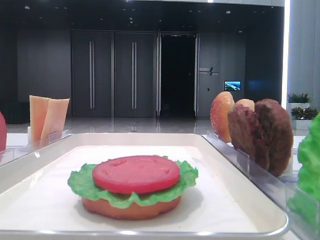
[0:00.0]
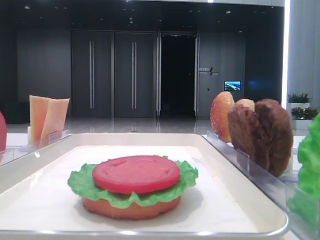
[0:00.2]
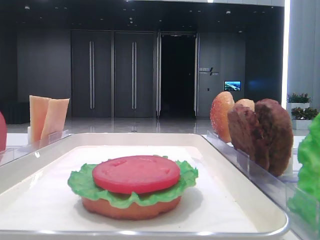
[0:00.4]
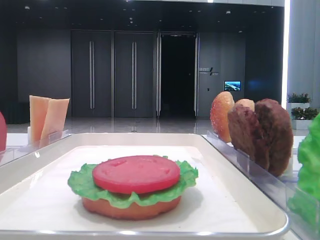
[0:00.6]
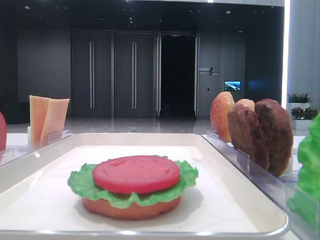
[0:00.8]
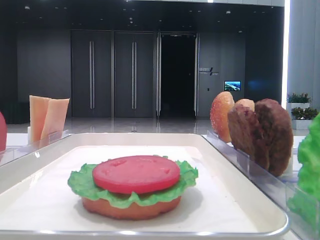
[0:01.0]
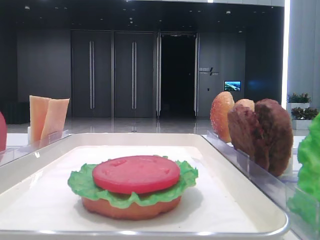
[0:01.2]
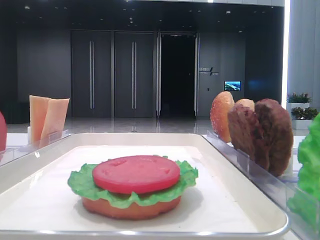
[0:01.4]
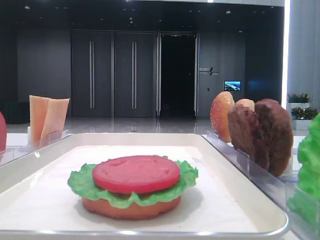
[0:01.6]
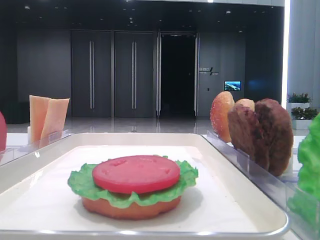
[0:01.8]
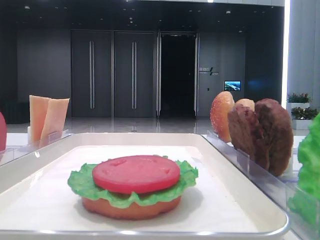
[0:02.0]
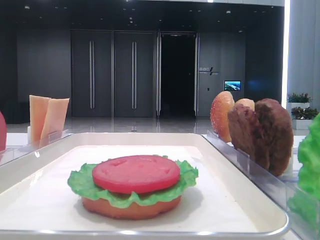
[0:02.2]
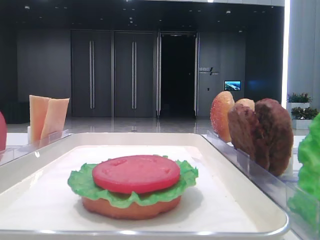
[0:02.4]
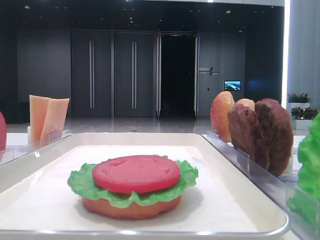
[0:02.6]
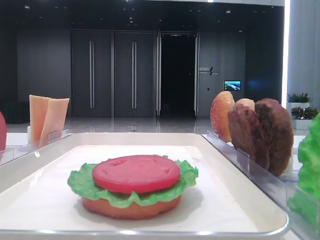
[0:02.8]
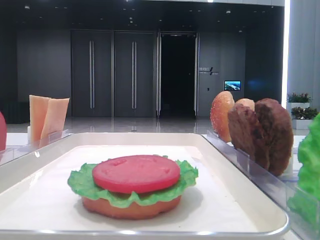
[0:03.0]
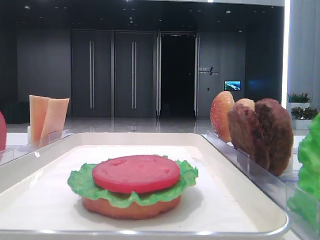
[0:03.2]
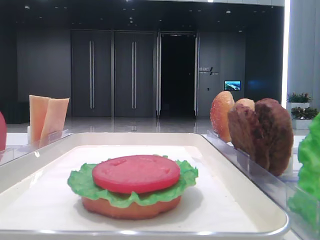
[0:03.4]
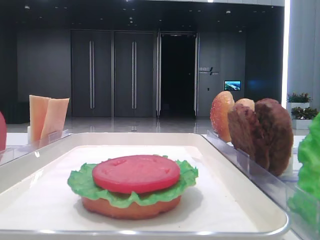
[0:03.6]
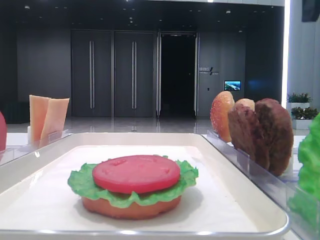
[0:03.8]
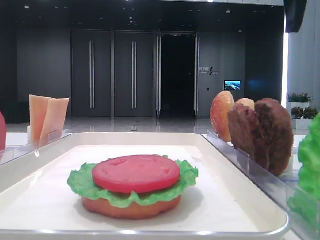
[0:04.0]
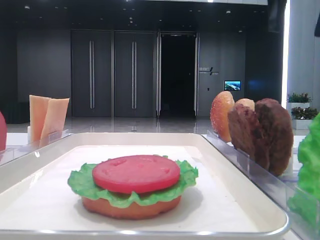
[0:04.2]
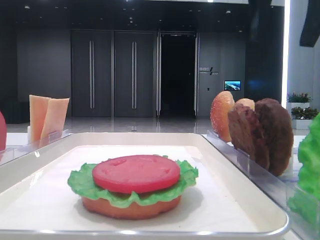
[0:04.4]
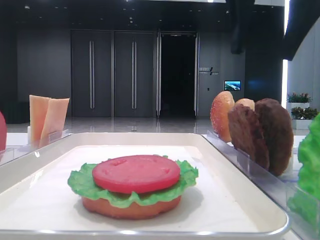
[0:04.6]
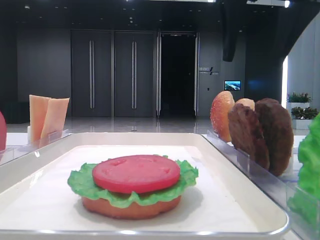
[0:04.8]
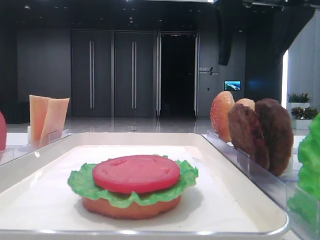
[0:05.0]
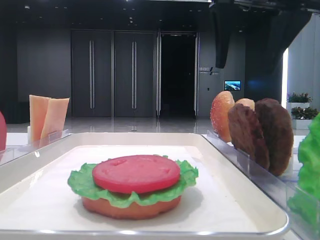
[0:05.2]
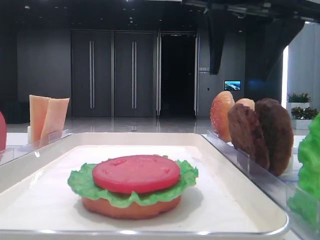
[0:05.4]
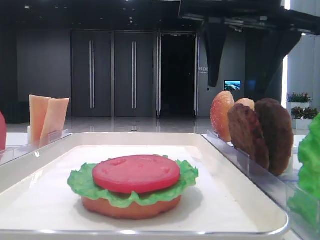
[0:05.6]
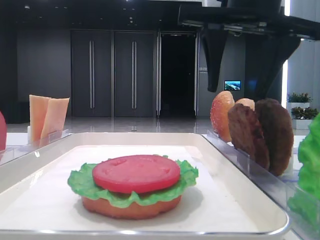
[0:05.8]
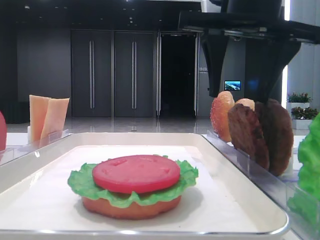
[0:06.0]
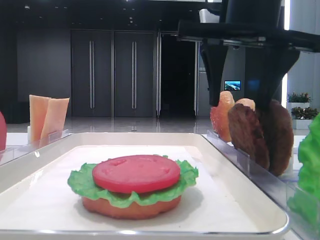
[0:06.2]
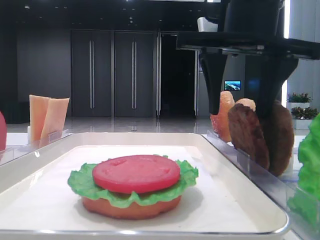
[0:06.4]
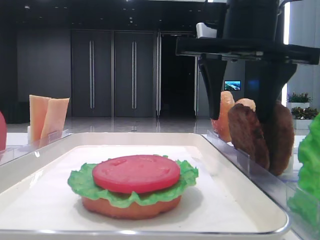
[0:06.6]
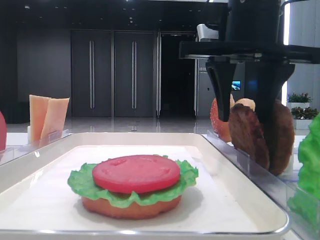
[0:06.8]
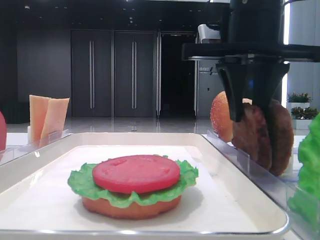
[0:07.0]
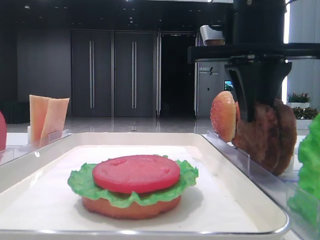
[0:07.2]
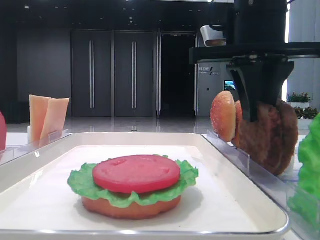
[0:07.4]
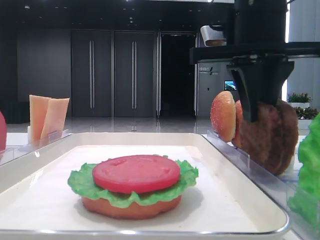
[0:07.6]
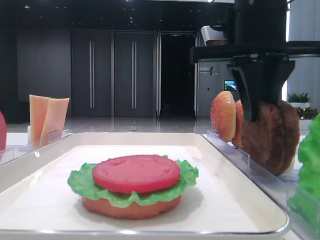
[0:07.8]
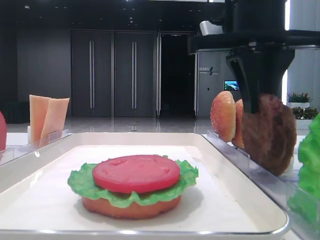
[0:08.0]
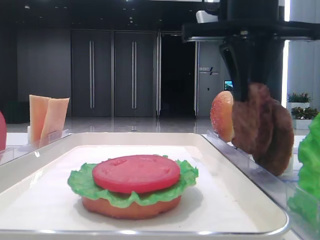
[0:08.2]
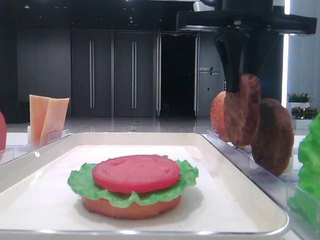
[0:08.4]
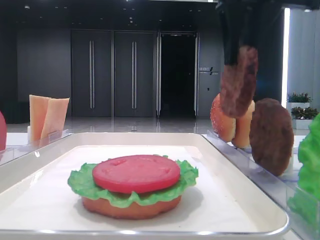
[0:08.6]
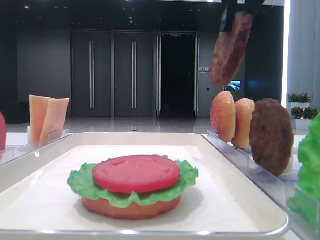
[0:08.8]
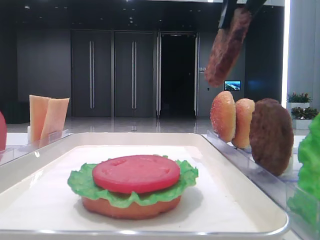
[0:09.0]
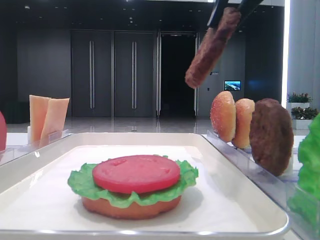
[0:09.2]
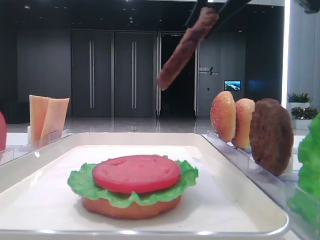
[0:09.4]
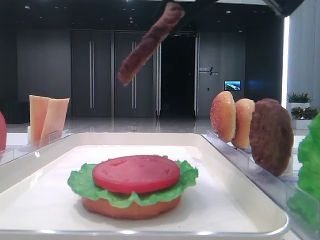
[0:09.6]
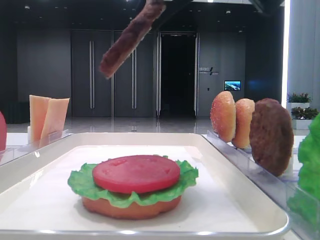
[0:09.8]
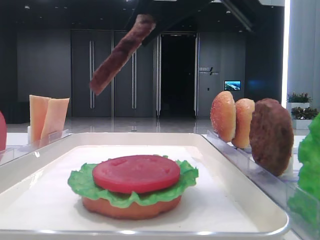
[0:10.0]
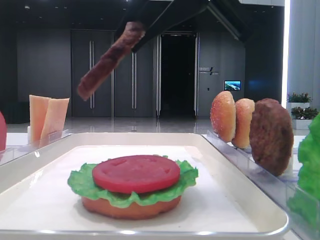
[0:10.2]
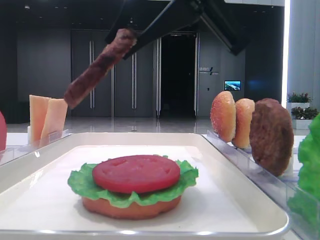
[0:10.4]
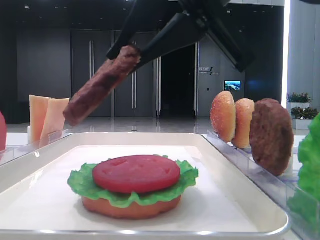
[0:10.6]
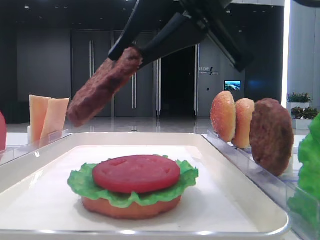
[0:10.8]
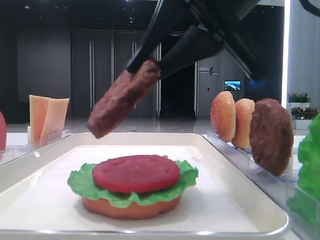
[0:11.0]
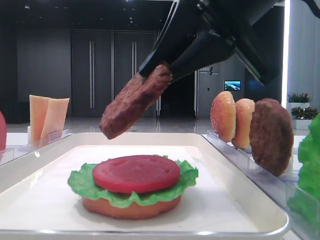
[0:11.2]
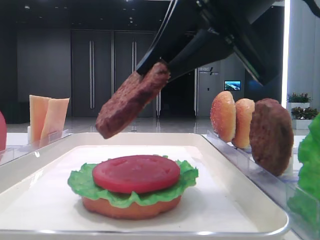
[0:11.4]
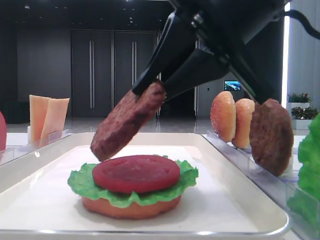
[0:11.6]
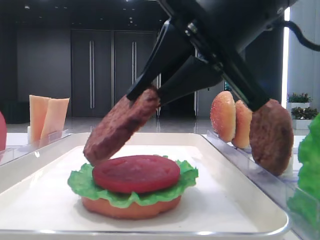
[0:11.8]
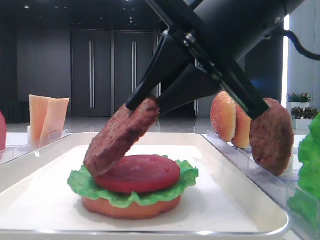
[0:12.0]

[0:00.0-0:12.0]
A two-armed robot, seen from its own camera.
Step, 0:00.0 to 0:07.6: Grab the patty with the right hand.
0:03.0 to 0:04.4: The right gripper moves to the left, some 15 cm.
0:04.4 to 0:06.0: The right gripper travels downward by about 5 cm.
0:06.0 to 0:07.6: The right gripper closes up.
0:07.6 to 0:09.0: The right gripper travels upward by some 10 cm.
0:09.0 to 0:10.4: The right gripper travels downward and to the left by roughly 10 cm.
0:10.4 to 0:12.0: The right gripper goes some 5 cm downward.

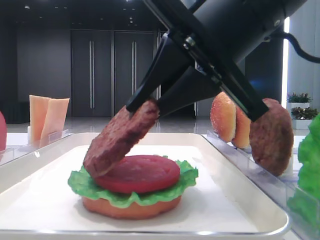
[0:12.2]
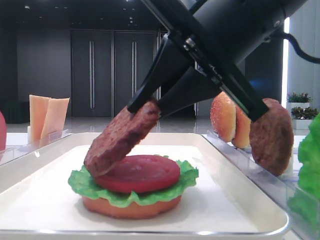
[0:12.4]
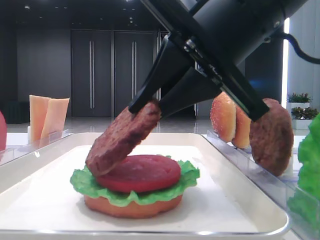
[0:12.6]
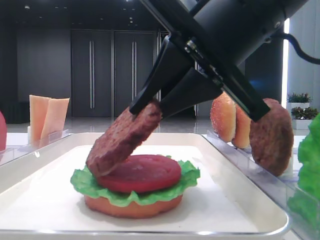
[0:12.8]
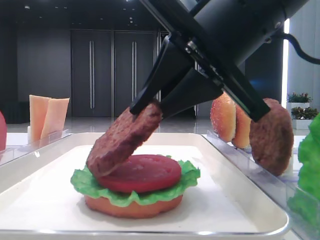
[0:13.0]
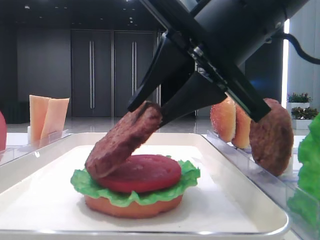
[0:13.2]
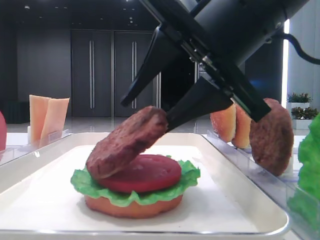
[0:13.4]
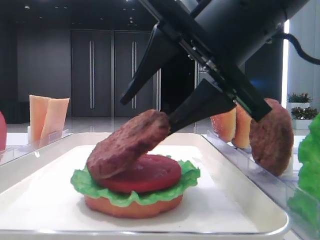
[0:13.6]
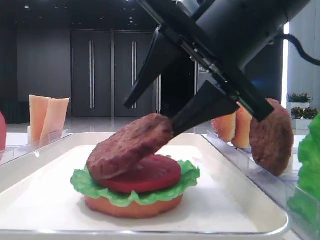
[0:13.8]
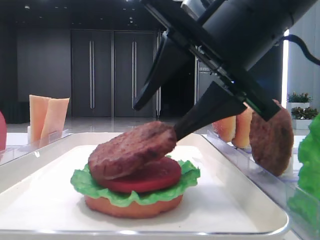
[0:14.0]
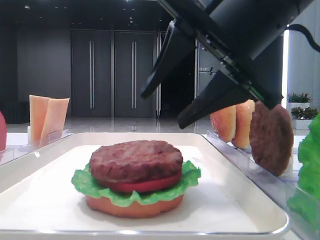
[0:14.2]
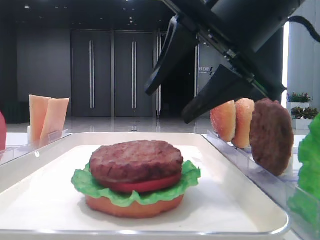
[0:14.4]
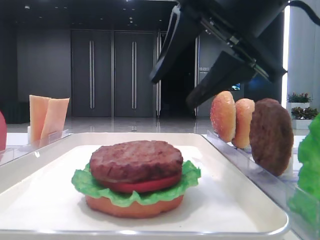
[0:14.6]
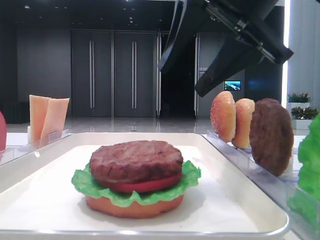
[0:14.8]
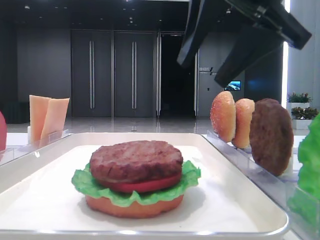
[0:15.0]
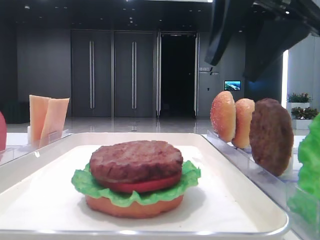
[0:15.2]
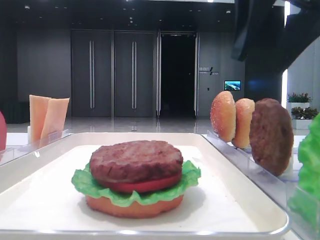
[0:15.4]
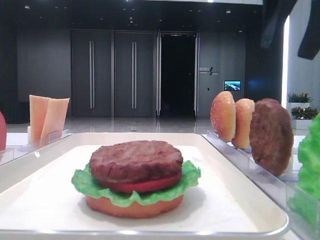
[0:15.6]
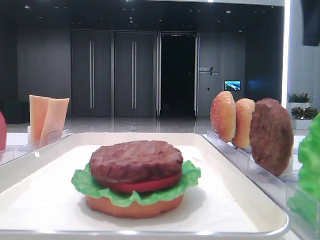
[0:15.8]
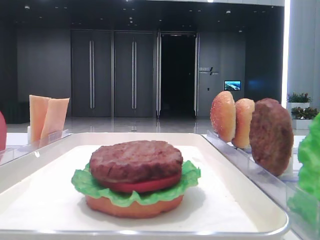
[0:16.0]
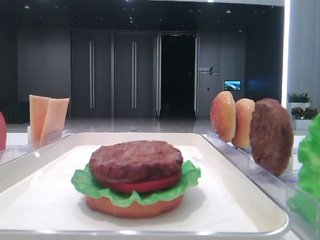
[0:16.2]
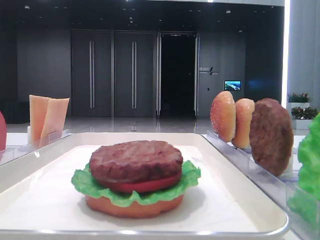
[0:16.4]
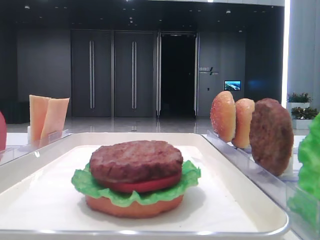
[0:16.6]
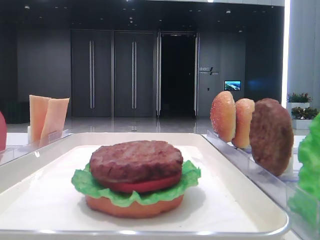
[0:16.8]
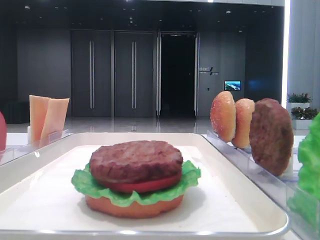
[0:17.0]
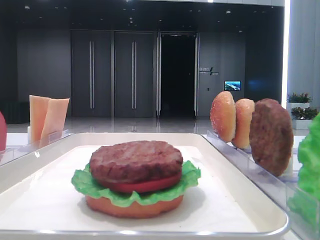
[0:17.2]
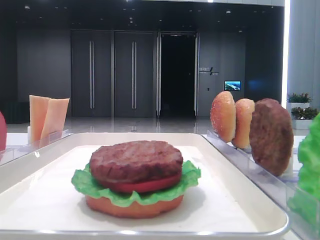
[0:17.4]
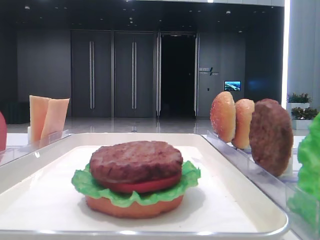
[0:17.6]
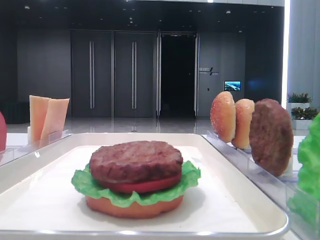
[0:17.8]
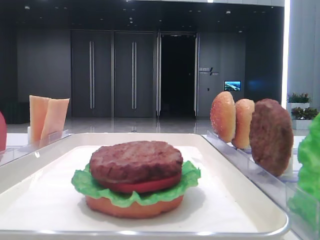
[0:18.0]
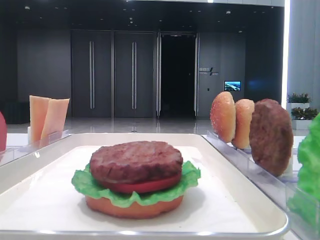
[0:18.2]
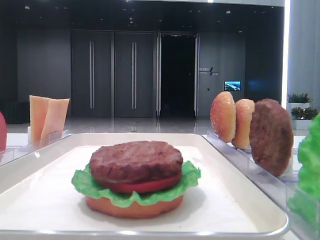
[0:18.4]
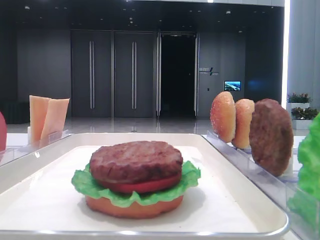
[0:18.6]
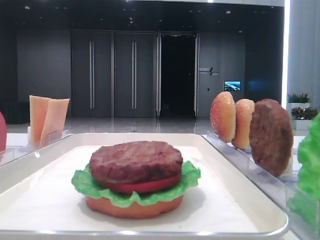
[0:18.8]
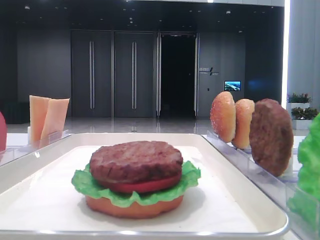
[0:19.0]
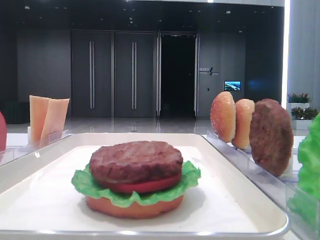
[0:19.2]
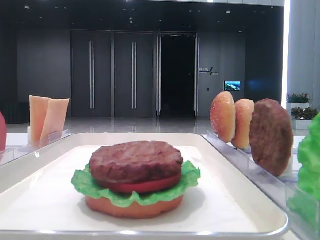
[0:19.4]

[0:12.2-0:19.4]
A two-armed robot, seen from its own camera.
0:12.2 to 0:13.6: The right gripper opens its fingers.
0:13.6 to 0:15.0: The right gripper travels upward by approximately 5 cm.
0:15.0 to 0:16.6: The right gripper is displaced to the right by approximately 20 cm.

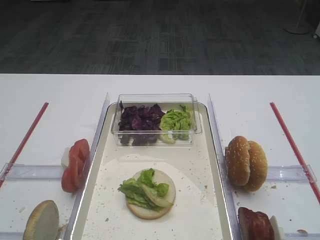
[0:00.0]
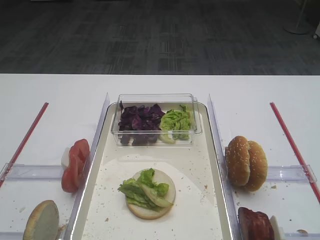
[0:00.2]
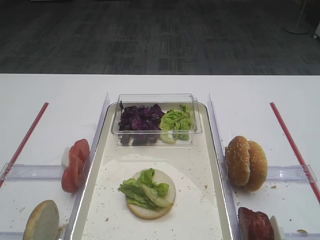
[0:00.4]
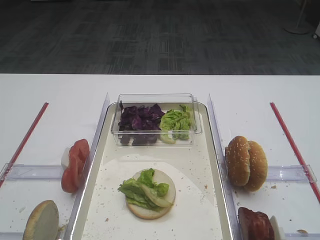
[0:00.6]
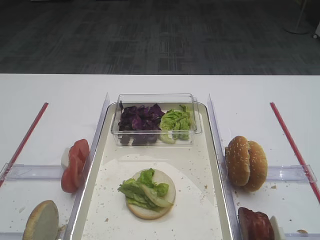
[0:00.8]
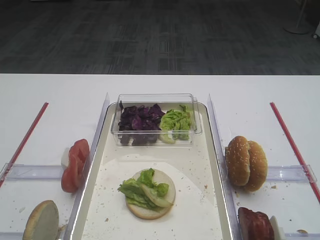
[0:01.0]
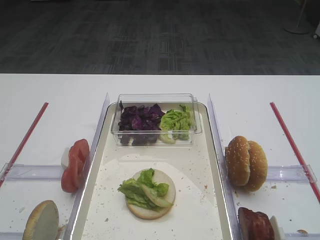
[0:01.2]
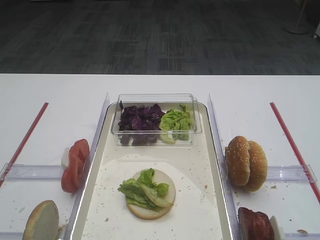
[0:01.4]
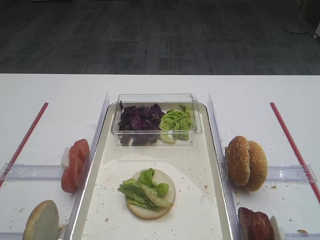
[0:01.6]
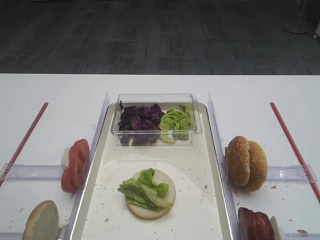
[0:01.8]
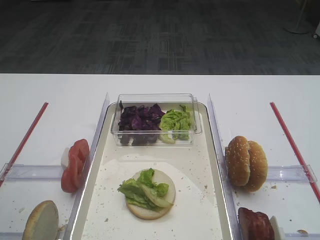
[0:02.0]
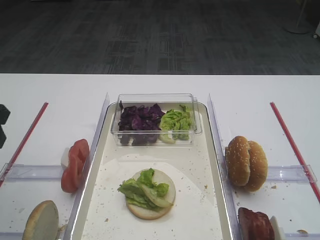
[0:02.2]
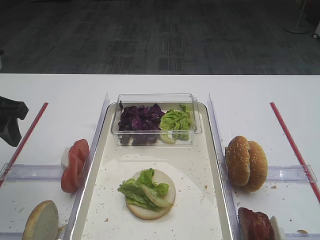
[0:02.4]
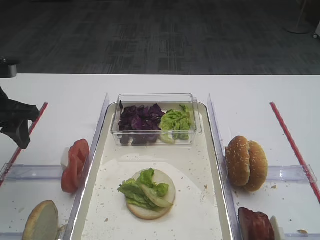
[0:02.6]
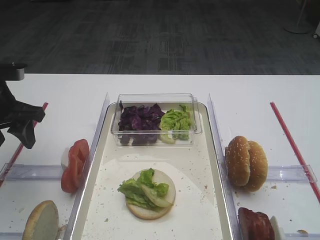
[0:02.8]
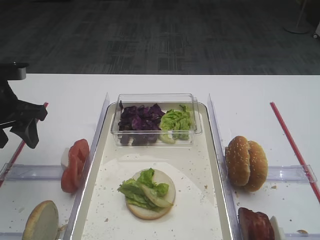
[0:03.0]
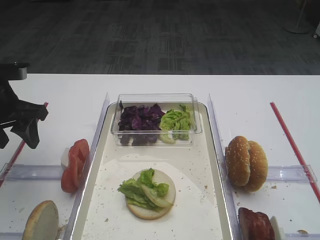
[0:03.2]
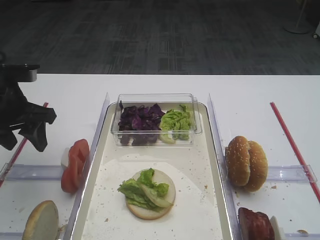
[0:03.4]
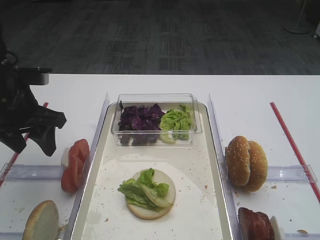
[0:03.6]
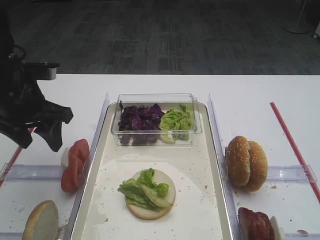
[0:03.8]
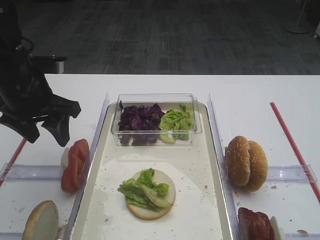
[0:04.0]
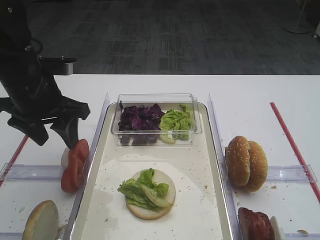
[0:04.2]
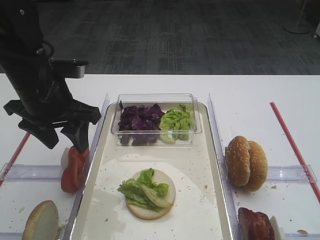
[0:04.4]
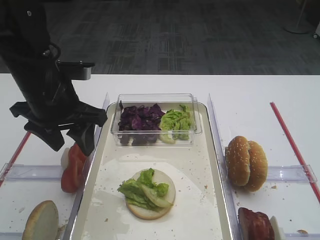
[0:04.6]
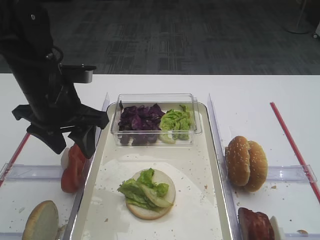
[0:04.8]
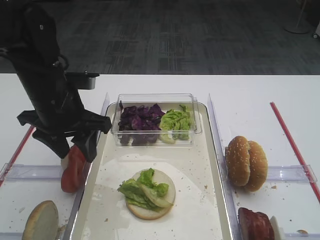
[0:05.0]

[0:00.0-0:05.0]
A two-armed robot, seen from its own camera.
0:01.6 to 0:03.4: The left gripper is displaced forward by approximately 25 cm.
0:03.4 to 0:05.0: The left gripper is displaced to the right by roughly 10 cm.
